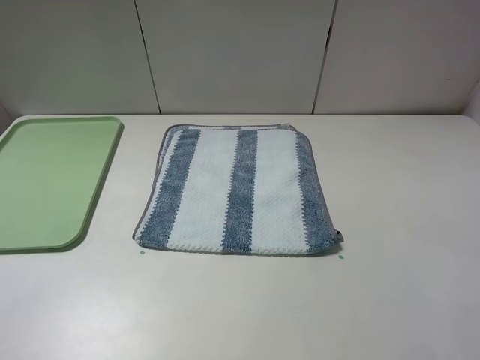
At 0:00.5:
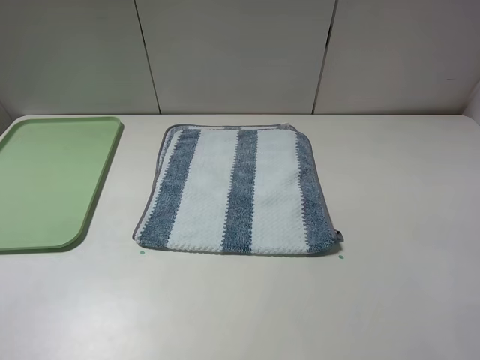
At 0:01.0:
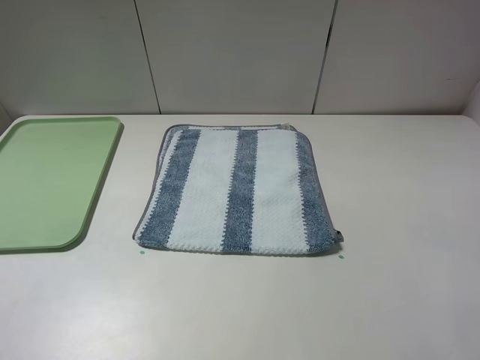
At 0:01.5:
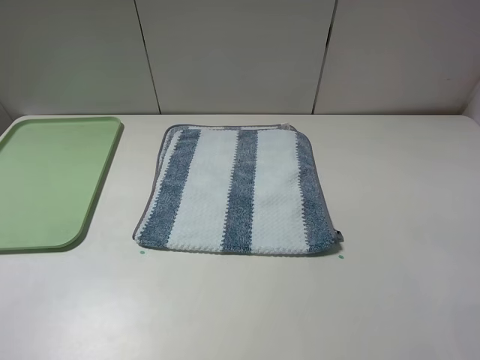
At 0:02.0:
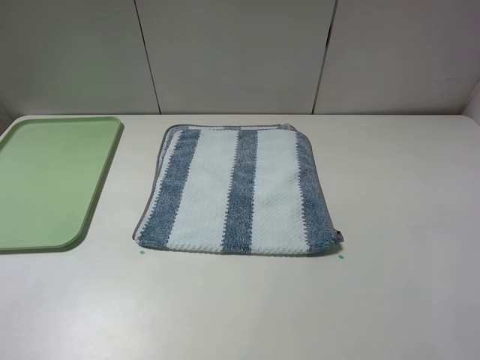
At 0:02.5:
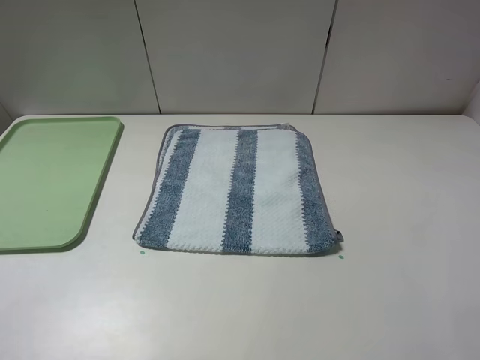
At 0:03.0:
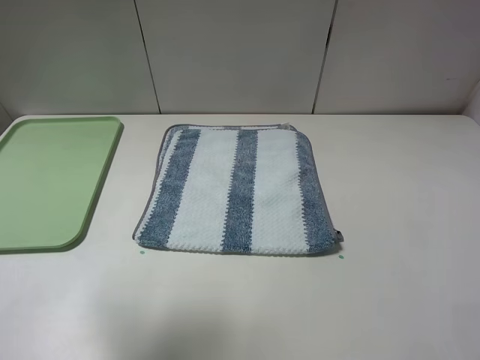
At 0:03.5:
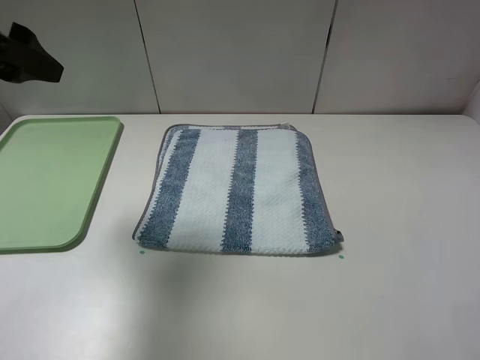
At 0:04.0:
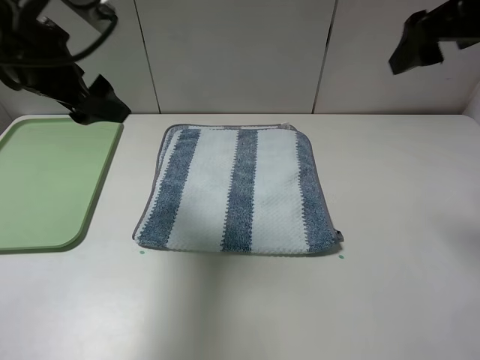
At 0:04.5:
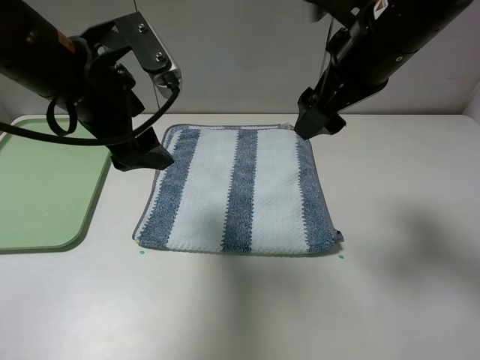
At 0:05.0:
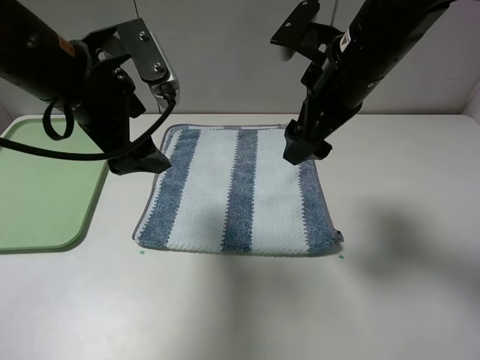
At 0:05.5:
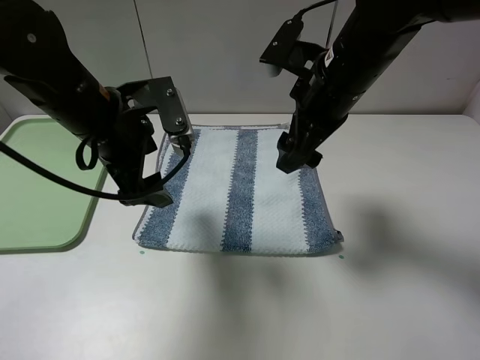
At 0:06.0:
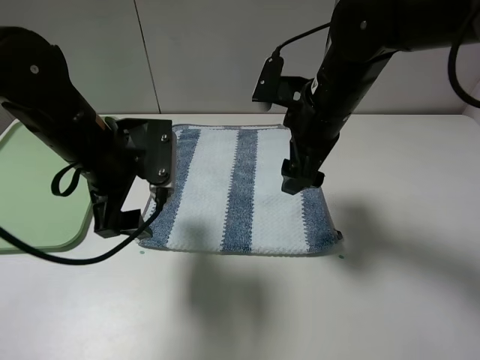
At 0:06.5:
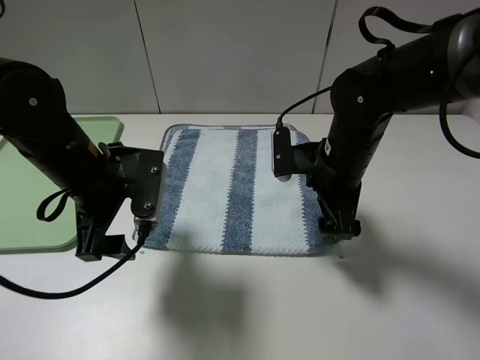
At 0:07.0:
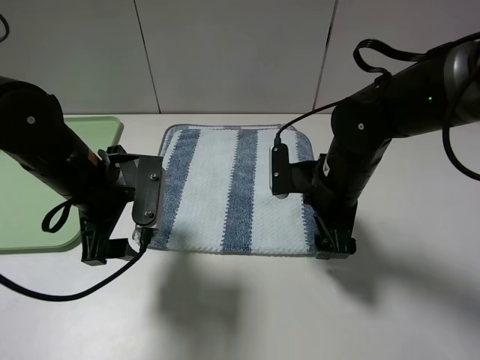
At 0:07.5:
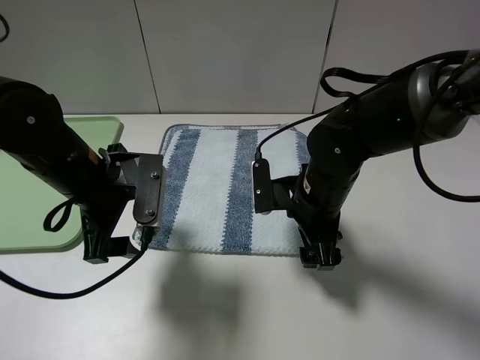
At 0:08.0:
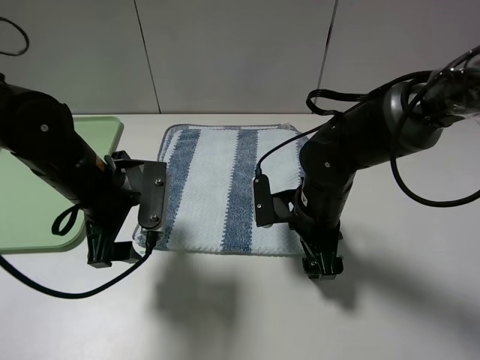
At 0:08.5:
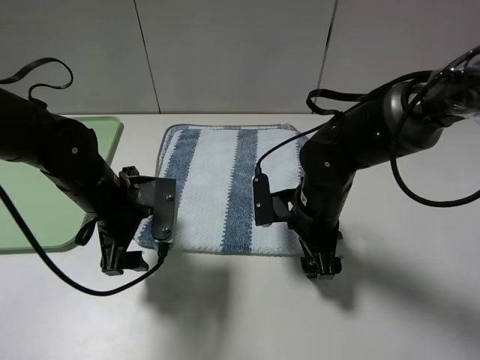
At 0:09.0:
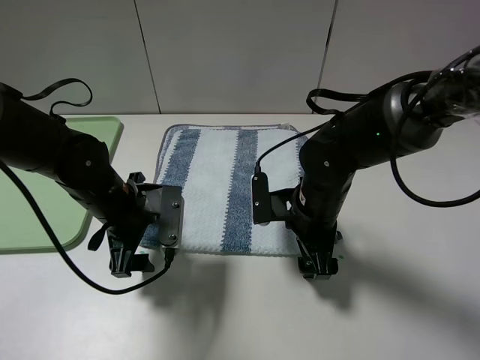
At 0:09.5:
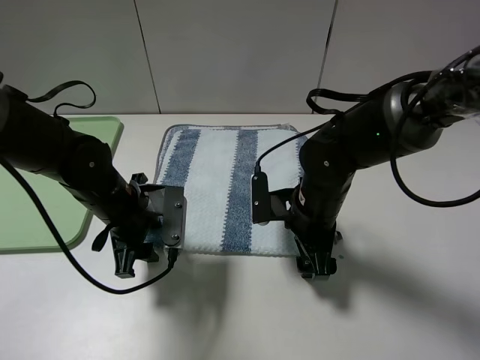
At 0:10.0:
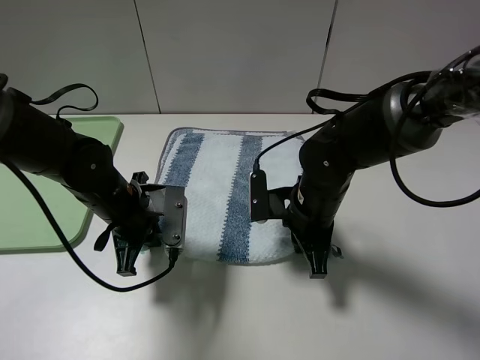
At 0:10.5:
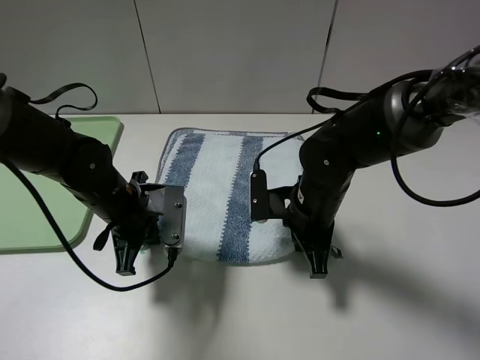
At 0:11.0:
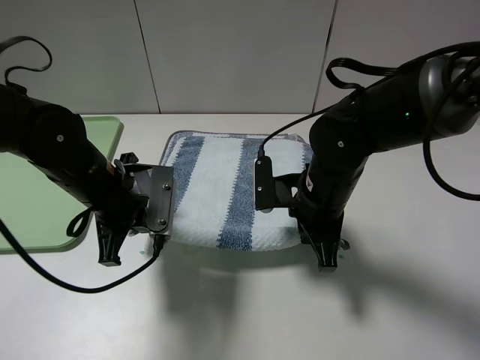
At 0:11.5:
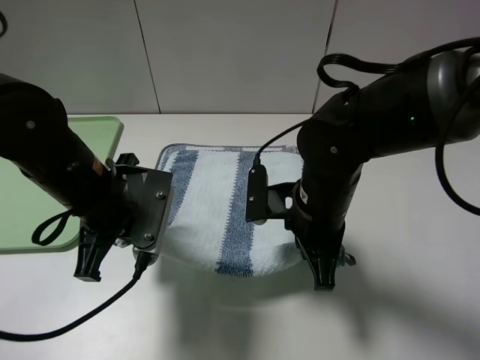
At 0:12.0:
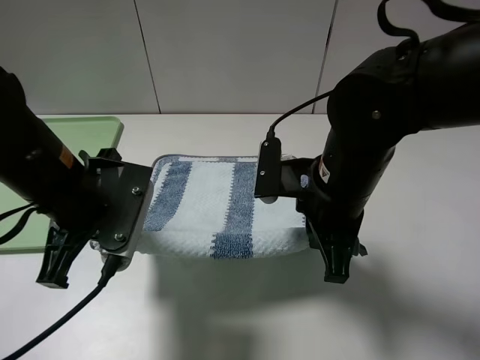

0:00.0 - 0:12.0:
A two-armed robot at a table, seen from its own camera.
Step, 0:00.0 - 0:10.0: Grasp the blue white towel with the left gripper.
0:02.0 - 0:04.0: Both grippers move forward, about 30 cm.
0:04.0 - 0:06.0: The left gripper goes about 10 cm downward and to the right. The right gripper moves downward and to the left, roughly 20 cm.
0:06.0 - 0:08.0: The right gripper goes some 15 cm downward and backward.
0:08.0 - 0:10.0: The left gripper moves downward, some 5 cm, and closes its fingers; the right gripper closes.
0:10.0 - 0:12.0: The right gripper shifts some 10 cm upward. The left gripper is displaced upward and backward by some 15 cm.

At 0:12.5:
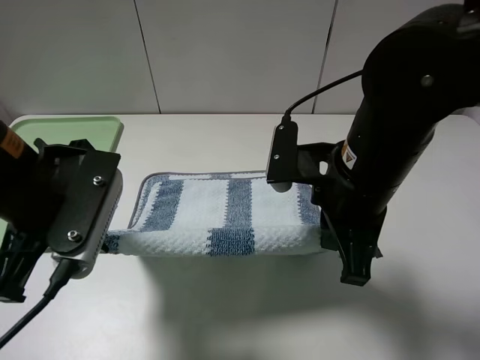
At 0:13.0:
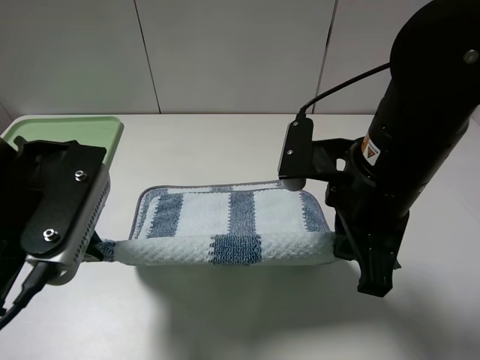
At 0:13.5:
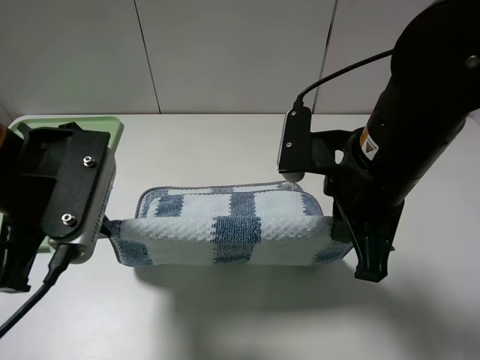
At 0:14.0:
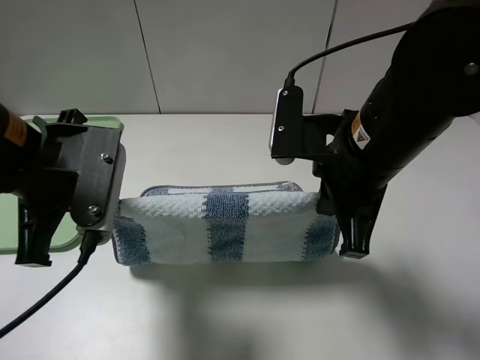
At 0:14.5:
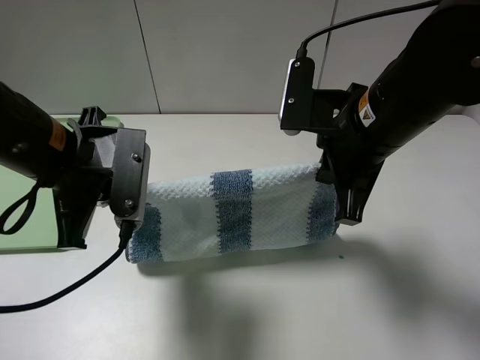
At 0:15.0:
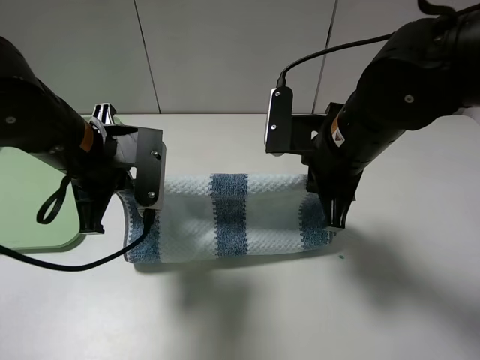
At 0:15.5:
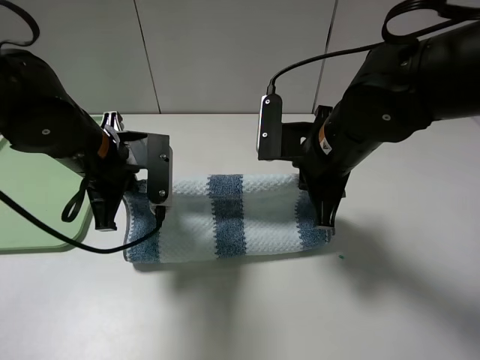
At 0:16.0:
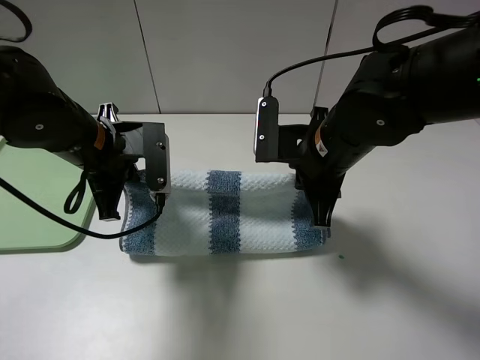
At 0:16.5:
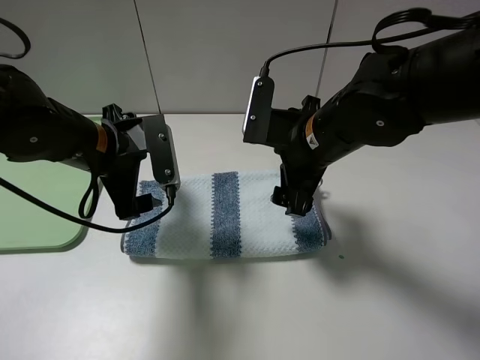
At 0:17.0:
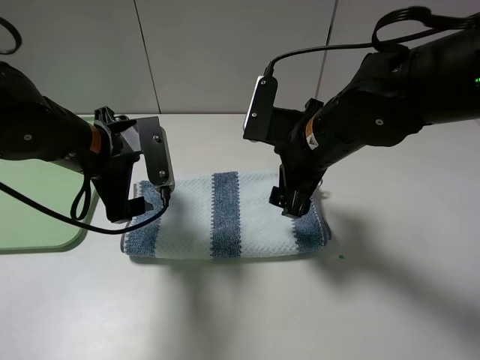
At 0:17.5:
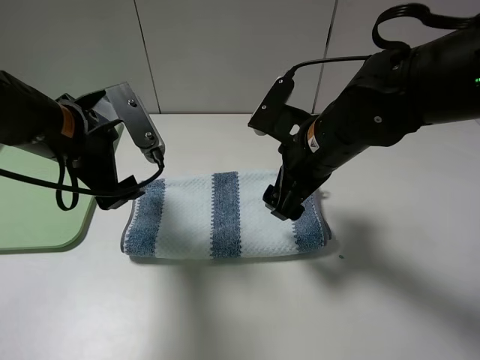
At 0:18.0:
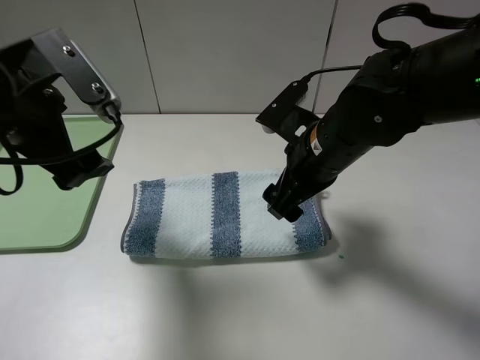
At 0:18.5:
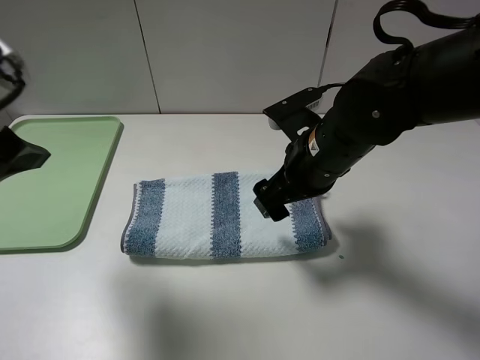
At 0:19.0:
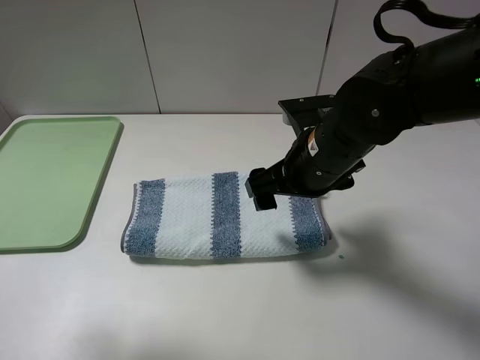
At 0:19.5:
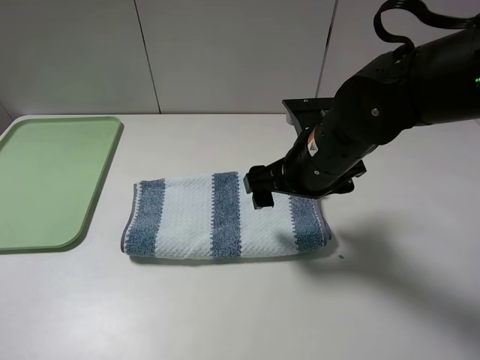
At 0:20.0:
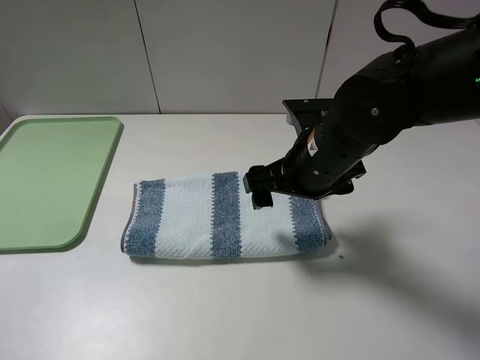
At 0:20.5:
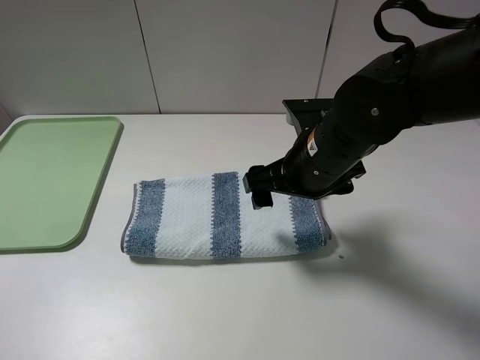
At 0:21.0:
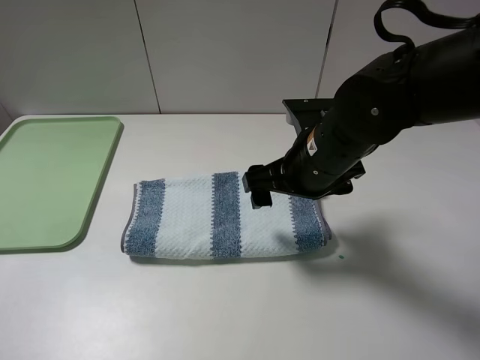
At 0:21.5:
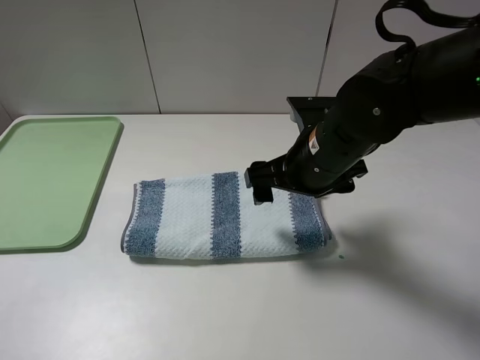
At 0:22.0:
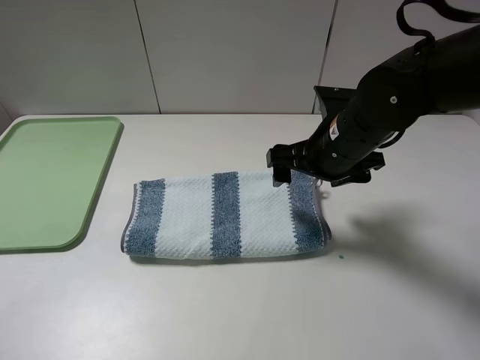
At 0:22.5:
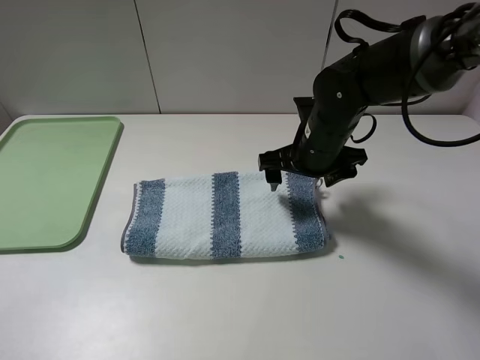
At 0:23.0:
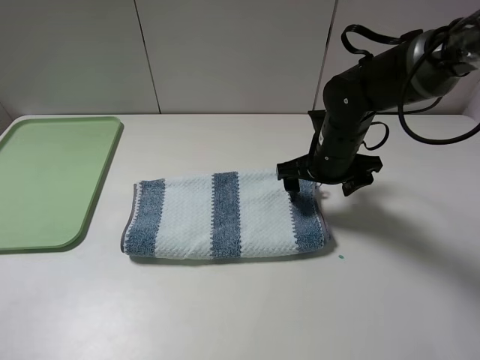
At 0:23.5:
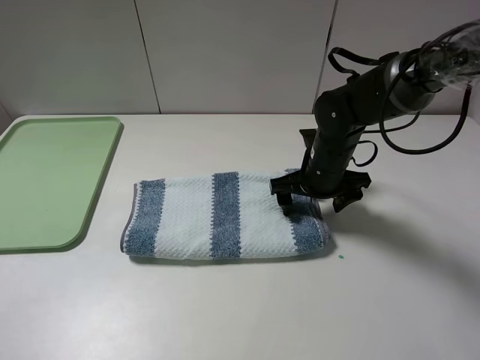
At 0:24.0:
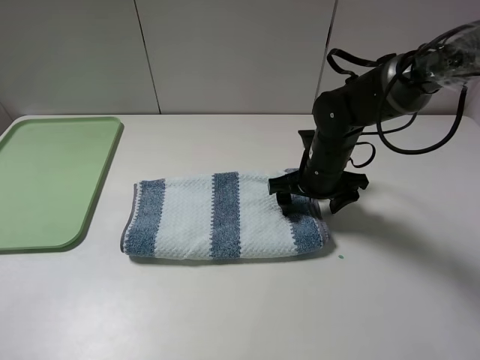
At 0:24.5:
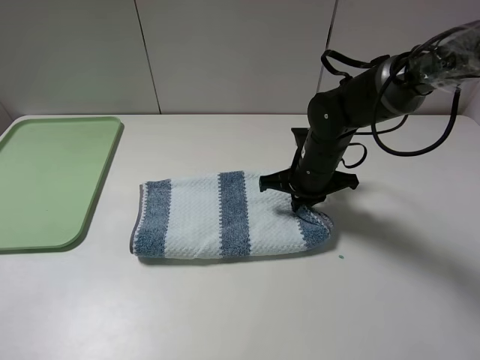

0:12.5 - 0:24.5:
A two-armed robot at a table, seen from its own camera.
Step, 0:12.5 - 0:17.5: Fold the blue white towel upwards with the left gripper.
0:14.5 - 0:16.5: The left gripper shifts some 5 cm forward, and opens its fingers. Meanwhile the right gripper goes about 5 cm downward, and opens its fingers.
0:16.5 - 0:18.5: The left gripper moves upward, backward and to the left, some 20 cm.
0:18.5 - 0:20.5: The left gripper is displaced backward and to the left by approximately 15 cm.
0:20.5 - 0:22.5: The right gripper travels forward by approximately 5 cm.
0:22.5 - 0:24.5: The right gripper travels downward by roughly 5 cm, and closes up.

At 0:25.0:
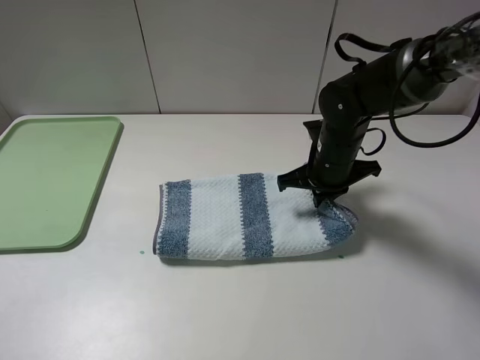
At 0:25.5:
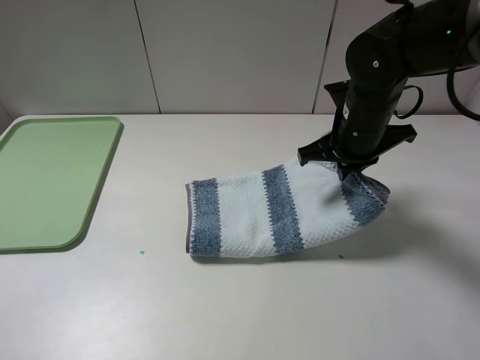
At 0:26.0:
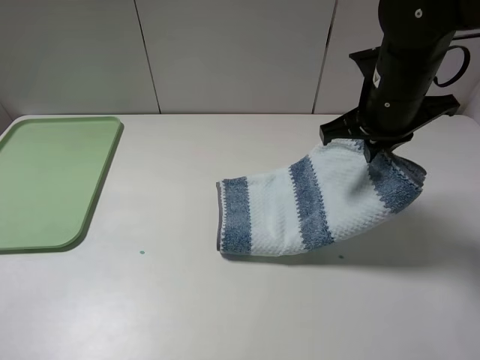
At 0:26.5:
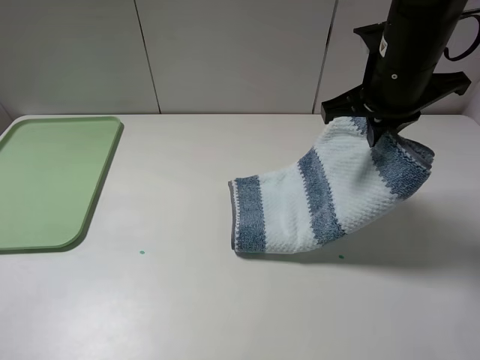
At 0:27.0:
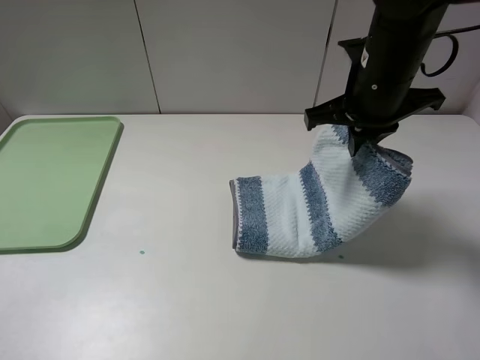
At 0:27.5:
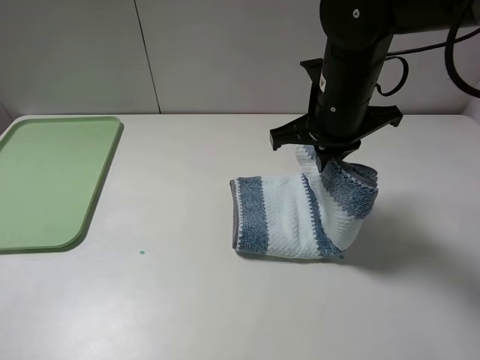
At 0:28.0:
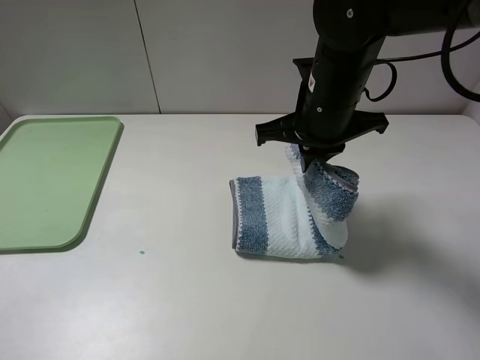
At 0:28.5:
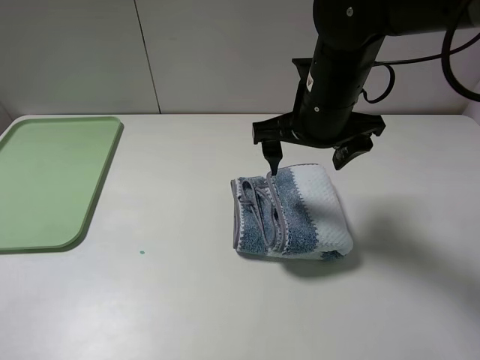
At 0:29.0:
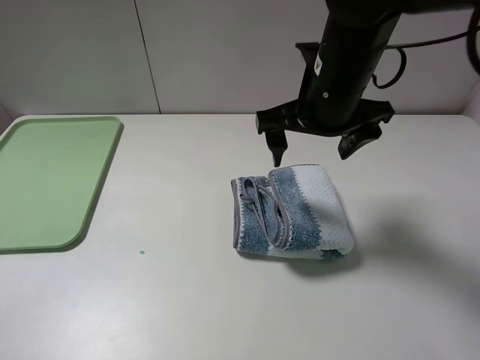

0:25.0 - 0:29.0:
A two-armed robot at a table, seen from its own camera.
0:25.0 - 0:27.0: The right gripper heads upward, covering some 10 cm.
0:27.0 - 0:29.0: The right gripper shifts by some 5 cm, and opens.
